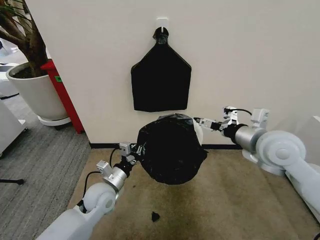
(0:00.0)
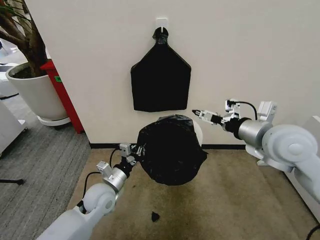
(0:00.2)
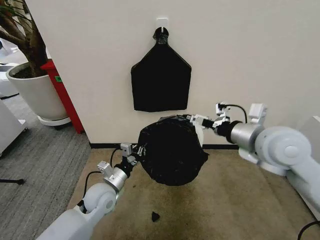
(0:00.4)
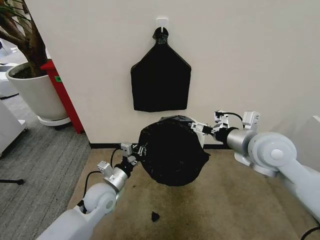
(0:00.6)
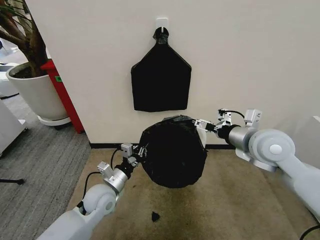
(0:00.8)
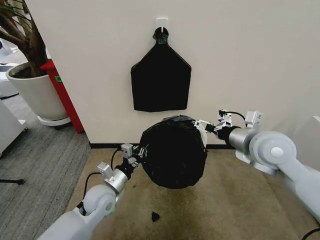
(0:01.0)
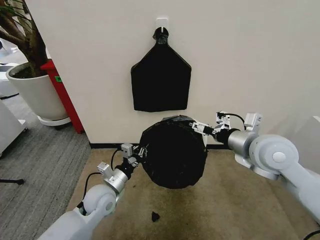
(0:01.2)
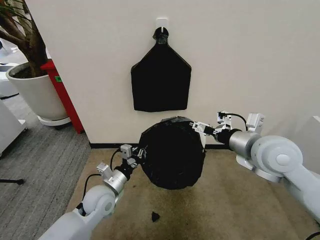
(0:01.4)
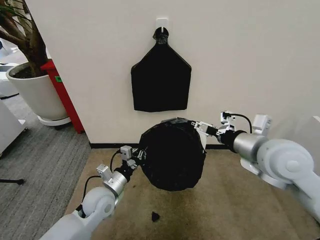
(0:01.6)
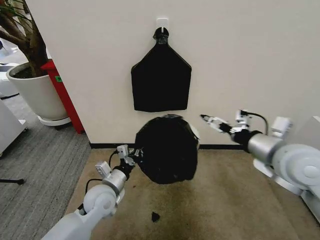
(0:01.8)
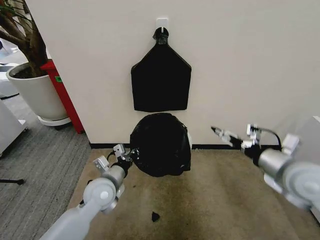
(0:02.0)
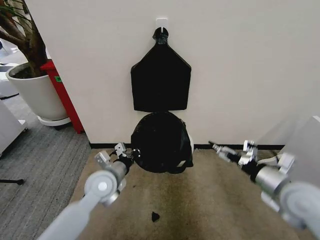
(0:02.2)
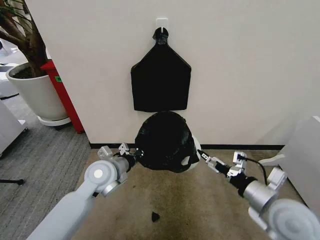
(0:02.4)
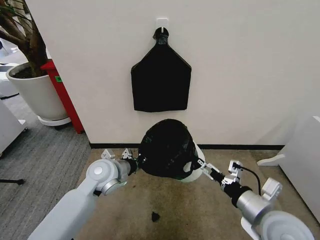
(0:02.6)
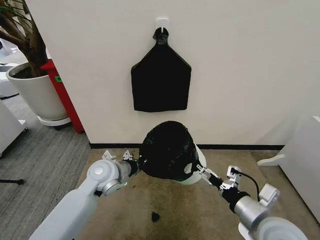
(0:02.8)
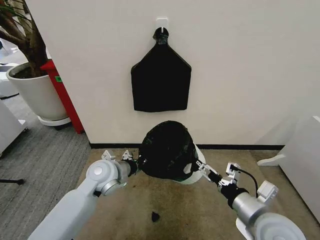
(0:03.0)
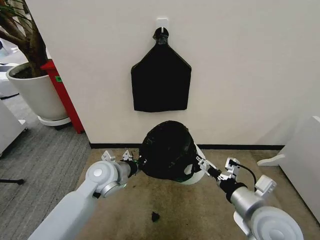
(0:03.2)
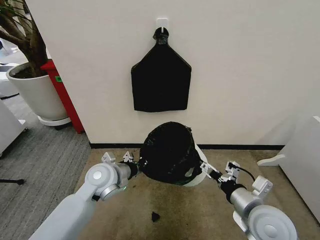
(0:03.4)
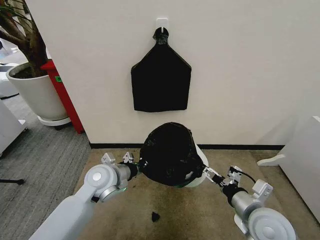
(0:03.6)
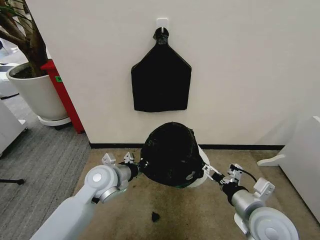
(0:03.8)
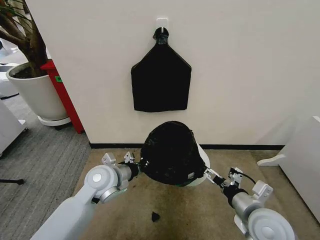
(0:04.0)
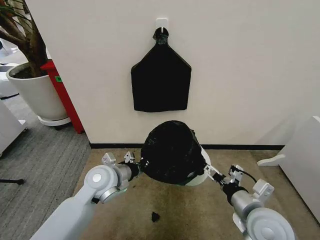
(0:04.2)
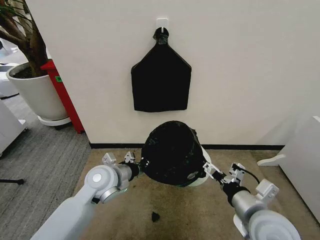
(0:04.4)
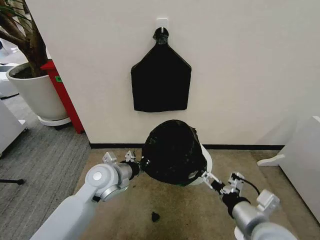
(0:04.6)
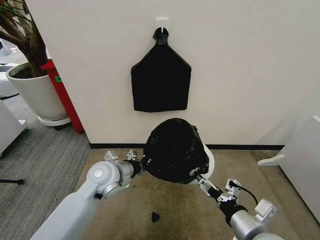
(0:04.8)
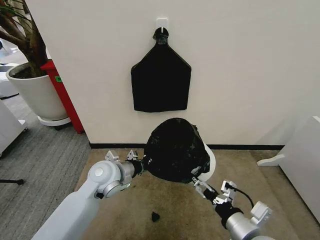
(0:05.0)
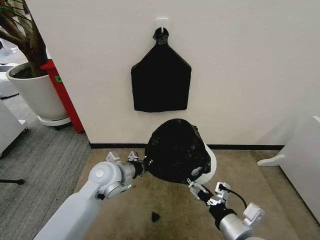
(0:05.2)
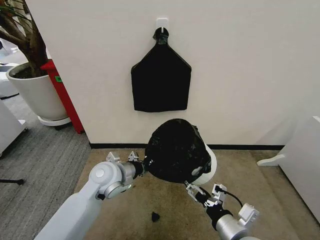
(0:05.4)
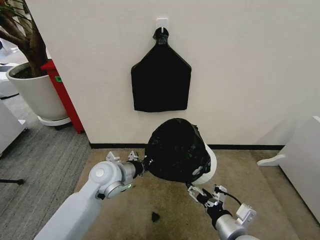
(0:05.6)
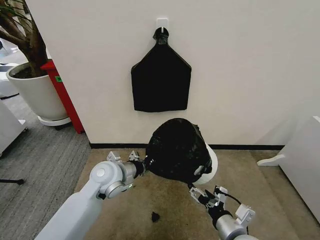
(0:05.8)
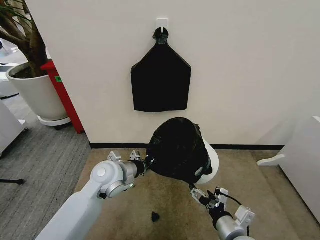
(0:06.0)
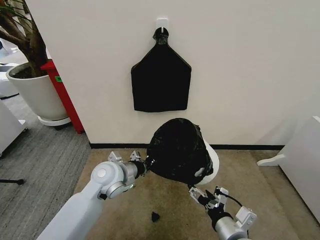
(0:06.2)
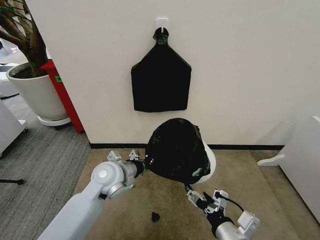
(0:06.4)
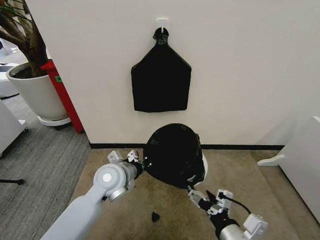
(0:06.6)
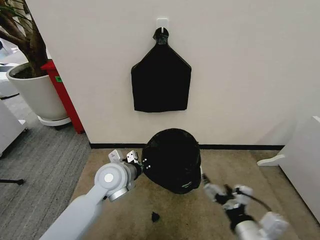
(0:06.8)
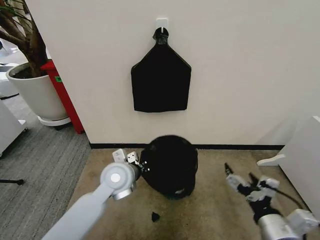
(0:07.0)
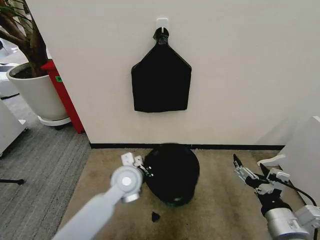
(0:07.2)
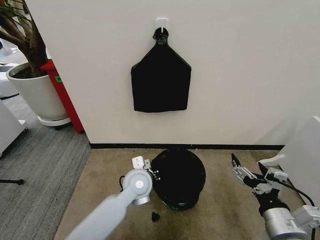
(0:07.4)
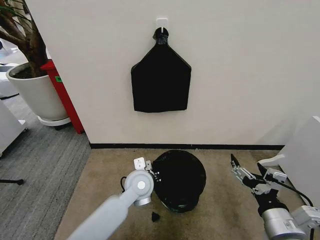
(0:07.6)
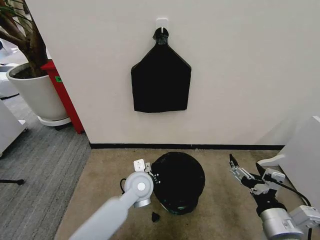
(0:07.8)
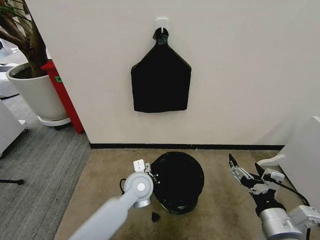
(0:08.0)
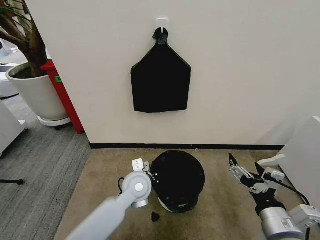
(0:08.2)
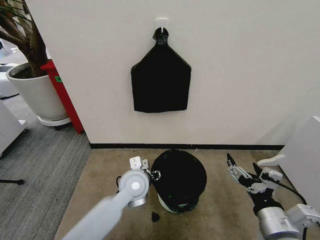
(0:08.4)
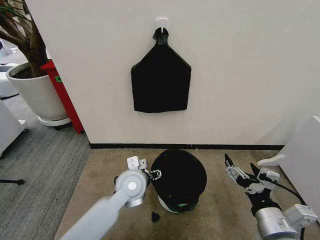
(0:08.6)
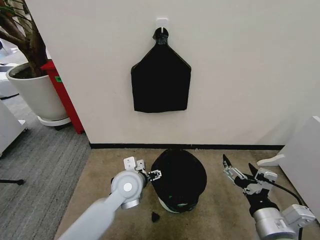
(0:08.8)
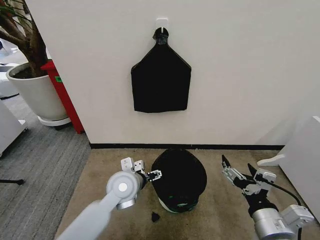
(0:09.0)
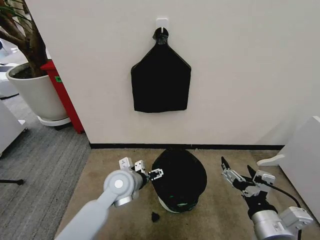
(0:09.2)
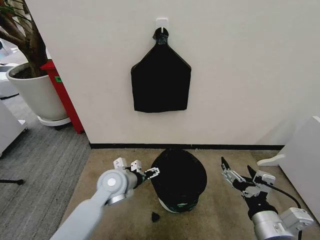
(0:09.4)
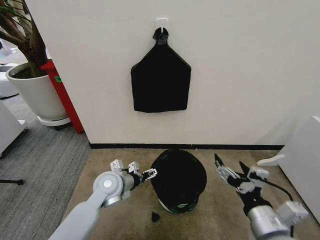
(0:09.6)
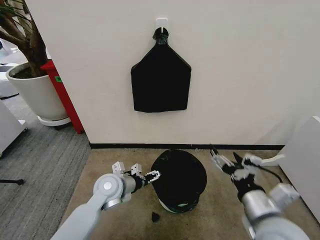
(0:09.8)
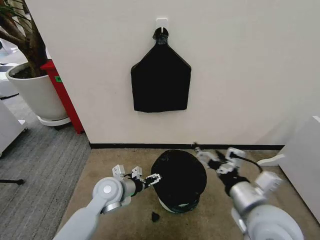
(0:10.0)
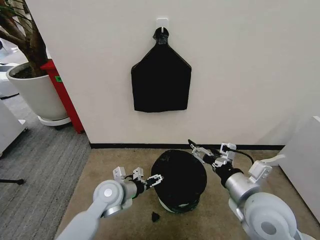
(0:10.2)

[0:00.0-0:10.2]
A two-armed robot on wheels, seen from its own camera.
Task of the whole recording: Place the garbage bag over the trash bin.
0:00.0 to 0:01.4: The grippers move only a little.
0:01.4 to 0:03.0: The left gripper travels upward and forward by roughly 10 cm; the right gripper travels backward and downward by roughly 20 cm.
0:03.0 to 0:04.4: The grippers make only small movements.
0:04.4 to 0:05.8: The right gripper travels downward by roughly 10 cm.
0:05.8 to 0:07.2: The left gripper goes approximately 5 cm to the right, while the right gripper shifts approximately 10 cm upward and to the right.
0:07.2 to 0:08.8: The left gripper opens its fingers.
0:08.8 to 0:10.2: The left gripper travels to the left by roughly 5 cm, while the right gripper travels forward by roughly 10 cm.

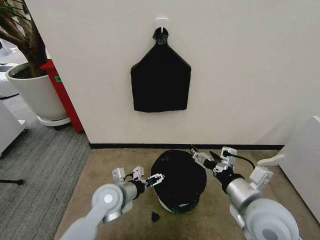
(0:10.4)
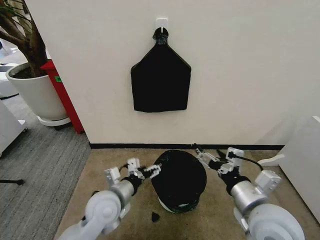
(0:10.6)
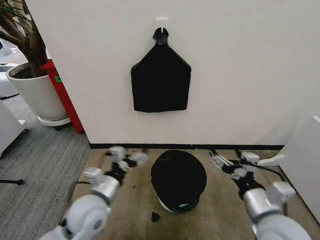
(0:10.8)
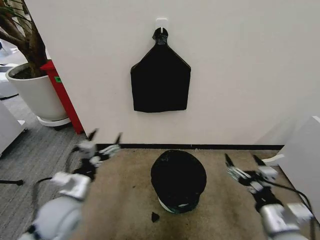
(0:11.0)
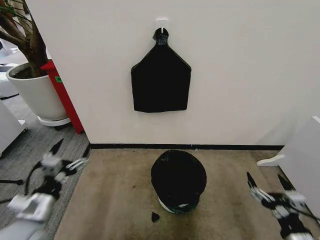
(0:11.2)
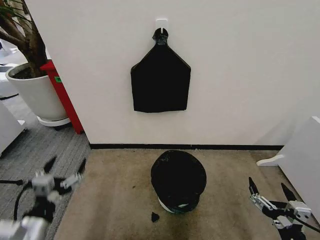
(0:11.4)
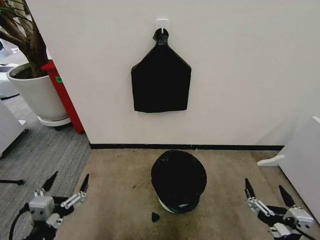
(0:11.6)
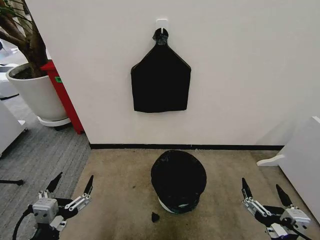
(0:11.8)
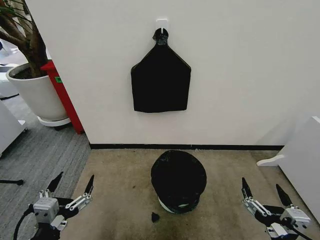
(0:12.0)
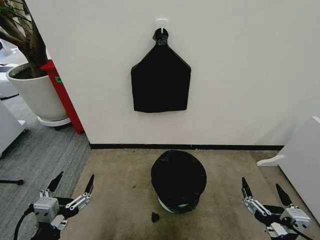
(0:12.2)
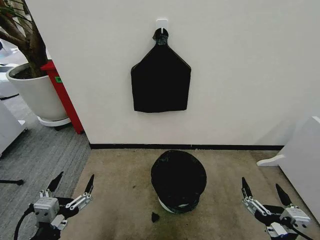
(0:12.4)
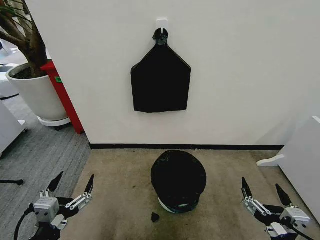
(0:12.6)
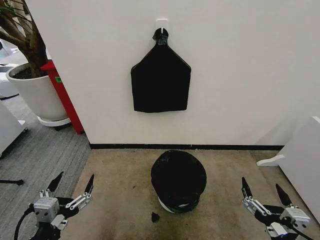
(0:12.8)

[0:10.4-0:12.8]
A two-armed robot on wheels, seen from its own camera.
Task of the whole recording: Place the garbage bag over the trash bin.
0:10.4 to 0:11.6: The left gripper travels backward and to the left by roughly 25 cm, while the right gripper goes about 20 cm backward and downward.
0:11.6 to 0:12.8: The two grippers keep their place.

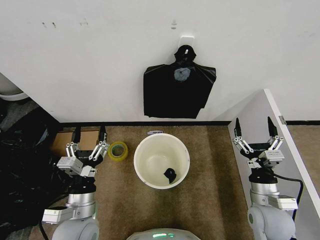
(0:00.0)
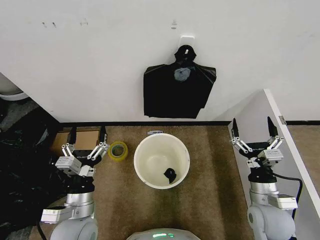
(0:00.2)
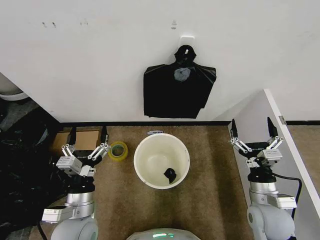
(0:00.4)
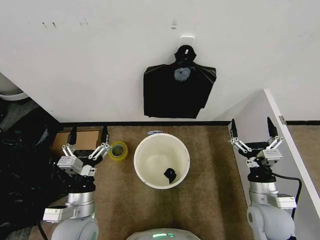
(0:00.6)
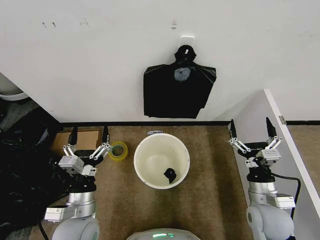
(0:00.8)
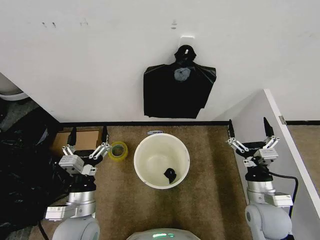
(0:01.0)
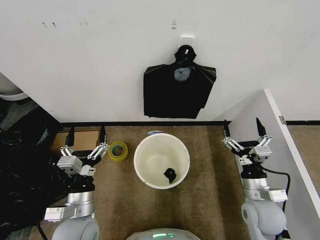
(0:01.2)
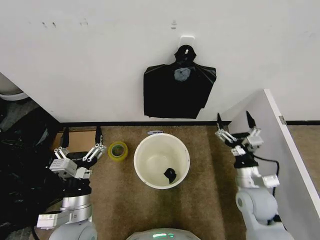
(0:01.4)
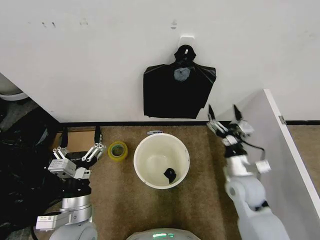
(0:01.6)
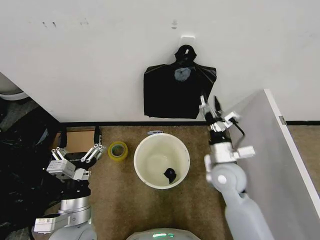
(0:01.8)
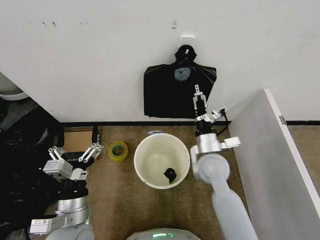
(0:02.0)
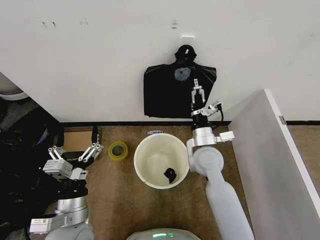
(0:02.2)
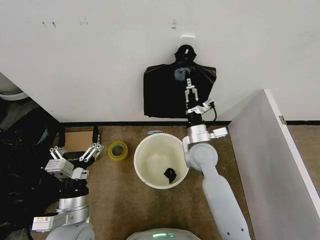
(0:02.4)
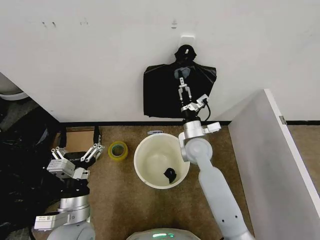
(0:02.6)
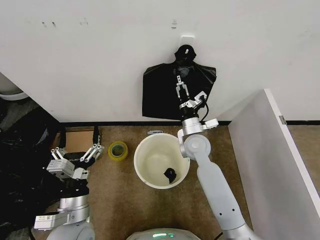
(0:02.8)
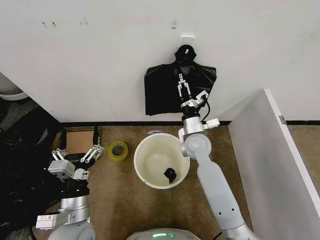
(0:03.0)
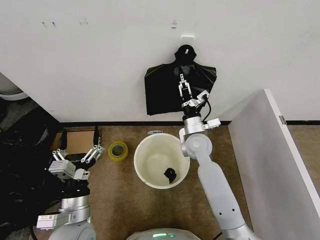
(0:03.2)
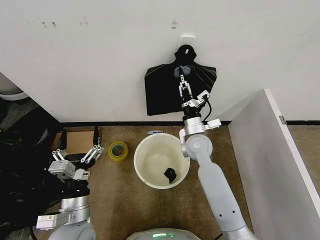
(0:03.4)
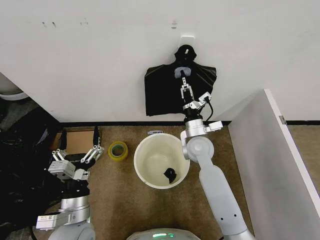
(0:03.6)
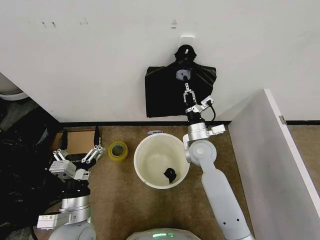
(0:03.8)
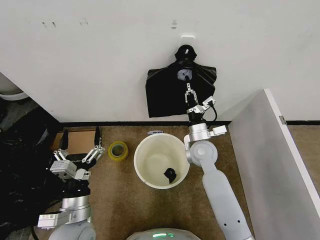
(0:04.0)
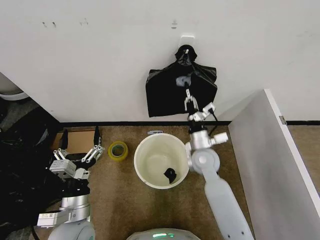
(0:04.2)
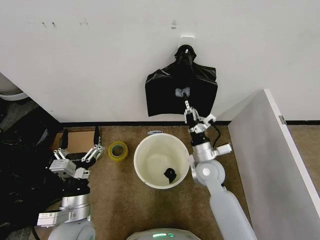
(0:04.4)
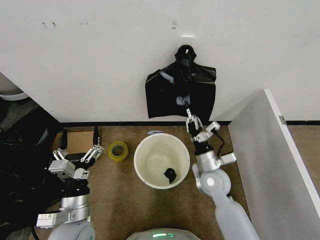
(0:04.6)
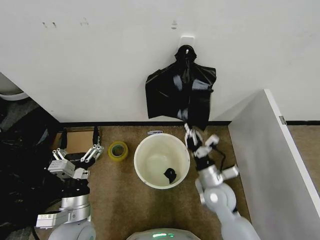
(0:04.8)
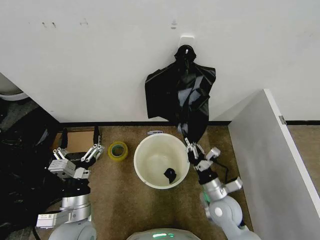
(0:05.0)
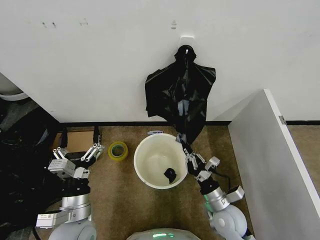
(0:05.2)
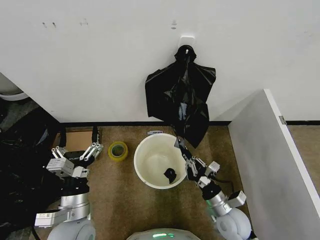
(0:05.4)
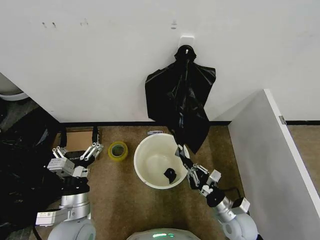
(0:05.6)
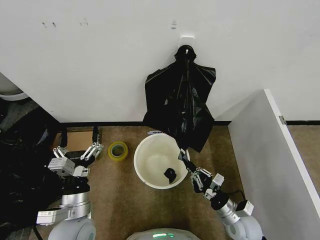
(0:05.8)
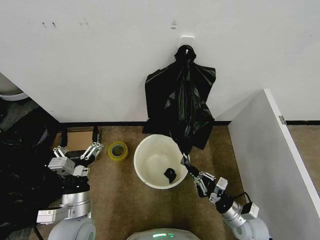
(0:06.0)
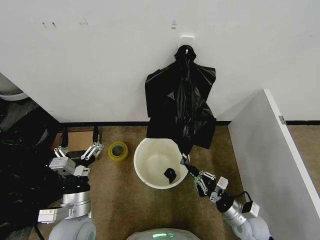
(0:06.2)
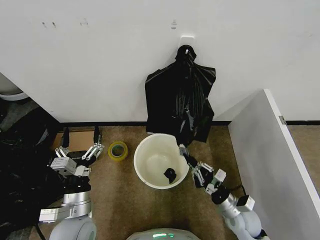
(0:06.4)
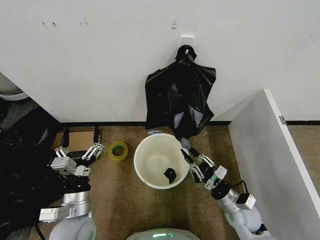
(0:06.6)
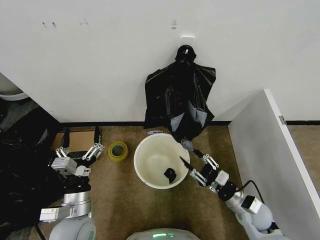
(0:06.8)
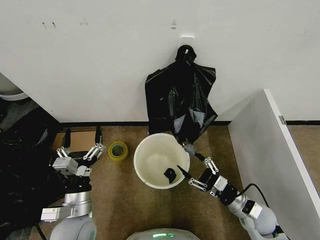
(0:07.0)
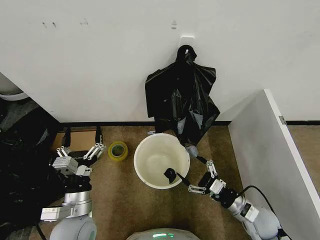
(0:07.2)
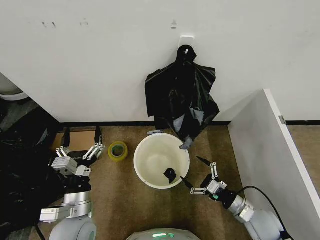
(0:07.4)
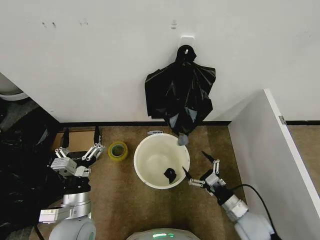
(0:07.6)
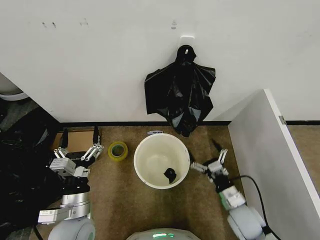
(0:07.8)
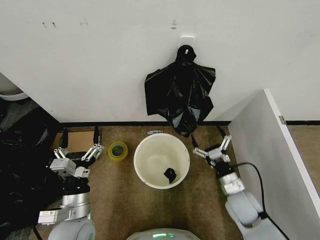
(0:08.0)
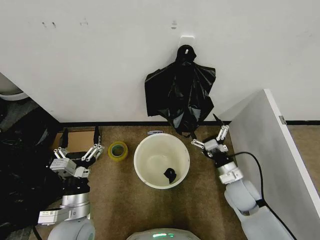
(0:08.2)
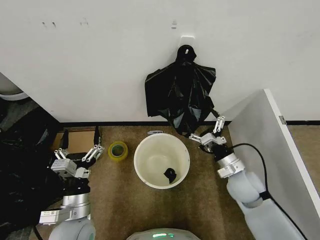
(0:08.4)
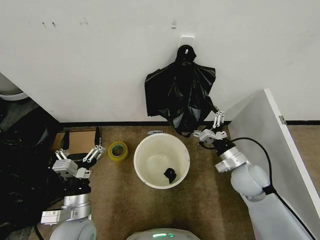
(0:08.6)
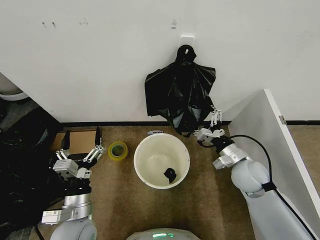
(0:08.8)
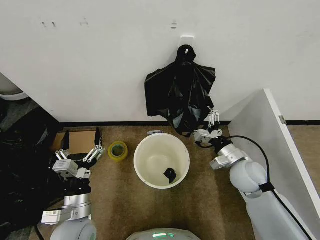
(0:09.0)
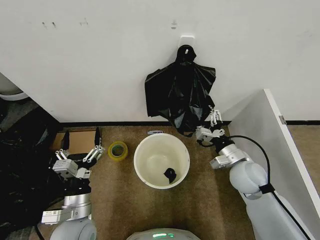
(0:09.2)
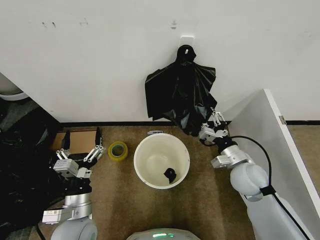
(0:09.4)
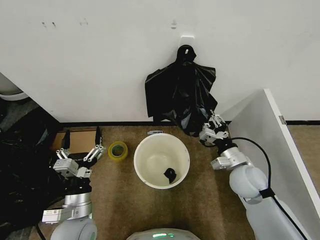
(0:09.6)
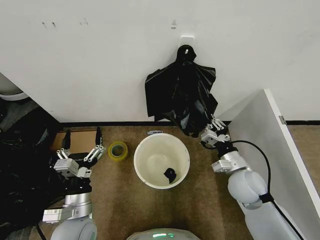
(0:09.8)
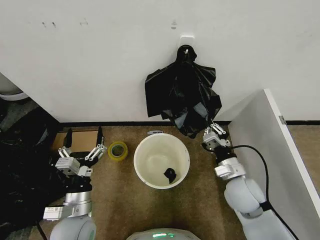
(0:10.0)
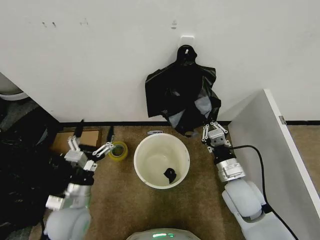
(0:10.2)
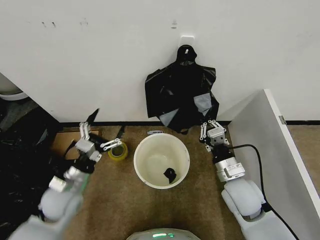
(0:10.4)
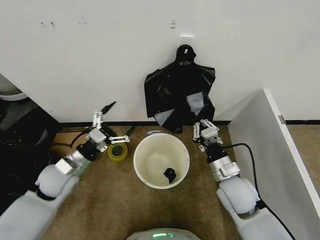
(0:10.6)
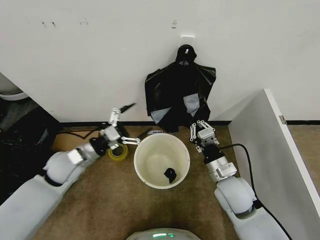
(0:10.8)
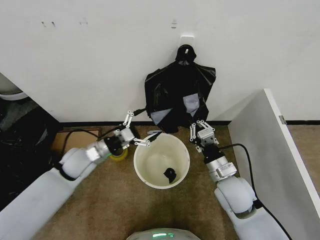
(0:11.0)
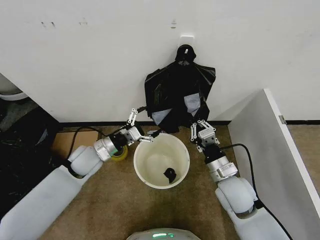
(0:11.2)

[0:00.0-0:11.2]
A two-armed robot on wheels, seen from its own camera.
Task of the whole recording: Place the garbage bag over the trash bin.
0:01.6 to 0:03.2: The right gripper moves forward and to the left, roughly 20 cm, and closes.
0:03.2 to 0:04.8: The right gripper shifts roughly 15 cm backward and downward, and closes.
0:04.8 to 0:06.4: The right gripper goes roughly 10 cm to the right, downward and backward.
0:06.4 to 0:08.0: The right gripper moves upward, approximately 5 cm, and opens its fingers.
0:08.0 to 0:09.6: The right gripper moves upward, some 10 cm, and closes its fingers.
0:09.6 to 0:11.2: The right gripper heads to the left, covering approximately 5 cm, while the left gripper travels forward by approximately 20 cm.
